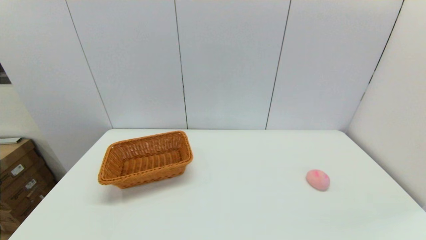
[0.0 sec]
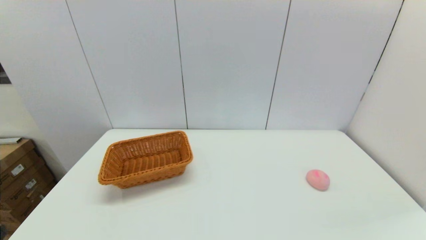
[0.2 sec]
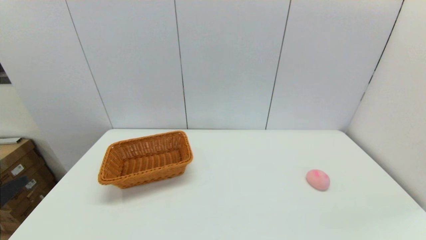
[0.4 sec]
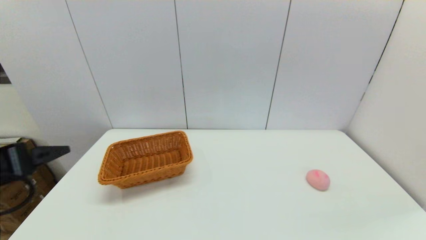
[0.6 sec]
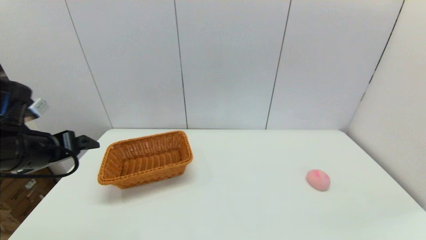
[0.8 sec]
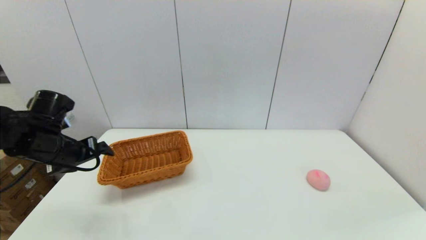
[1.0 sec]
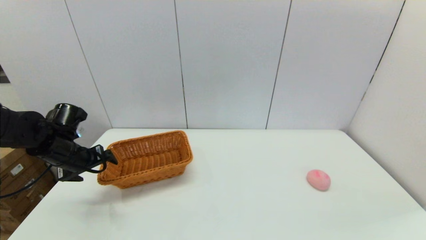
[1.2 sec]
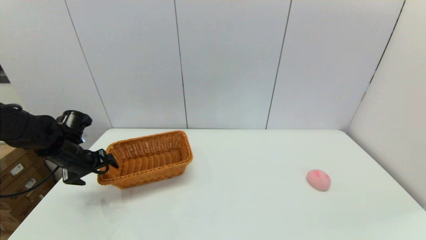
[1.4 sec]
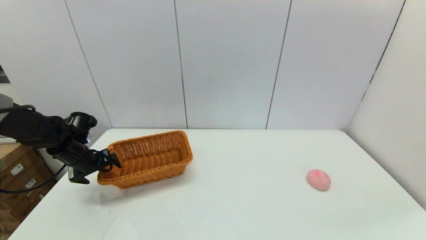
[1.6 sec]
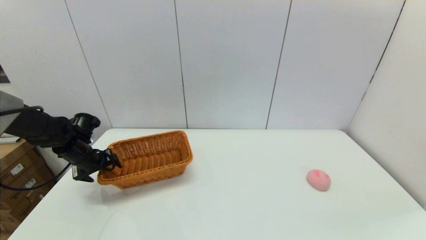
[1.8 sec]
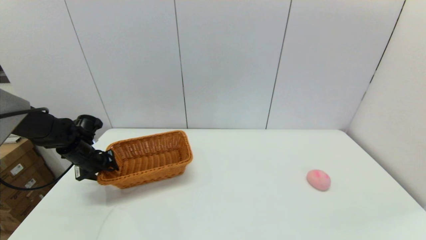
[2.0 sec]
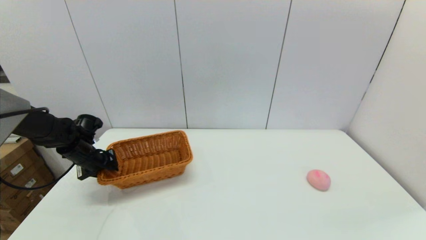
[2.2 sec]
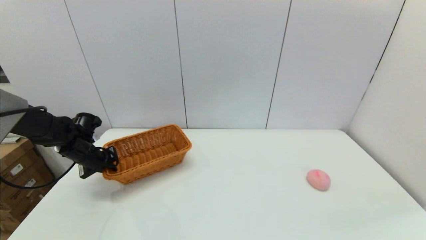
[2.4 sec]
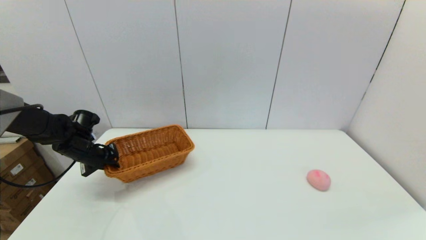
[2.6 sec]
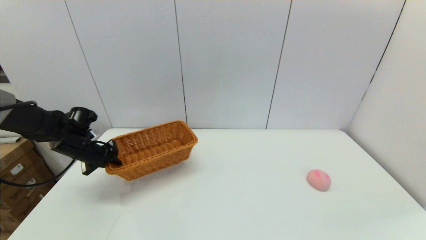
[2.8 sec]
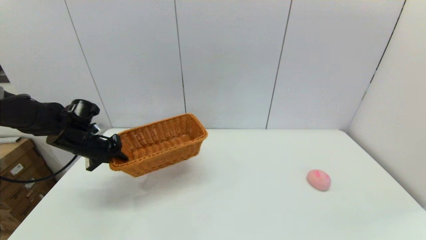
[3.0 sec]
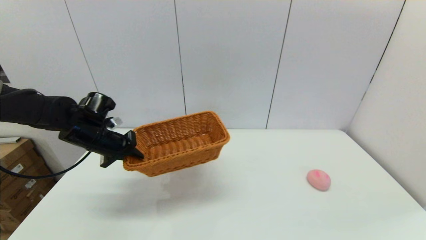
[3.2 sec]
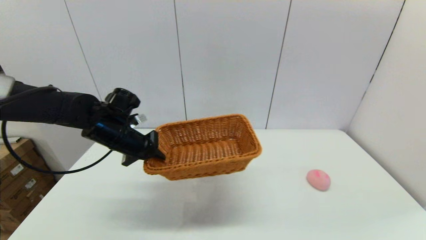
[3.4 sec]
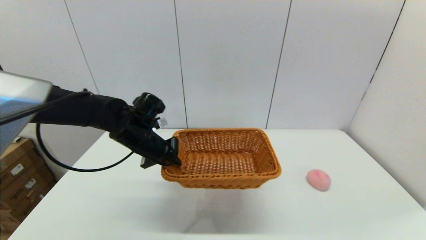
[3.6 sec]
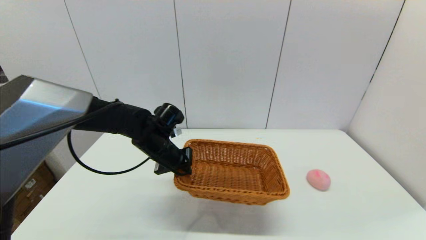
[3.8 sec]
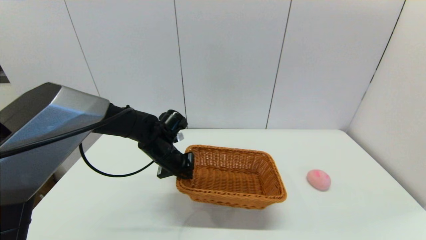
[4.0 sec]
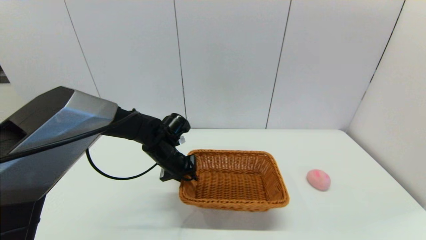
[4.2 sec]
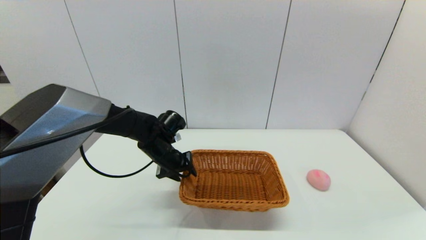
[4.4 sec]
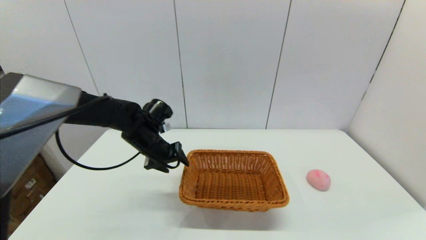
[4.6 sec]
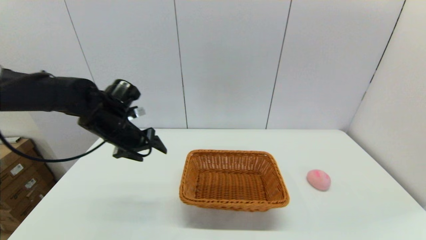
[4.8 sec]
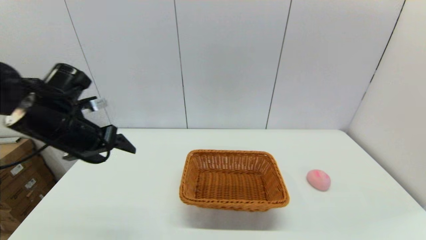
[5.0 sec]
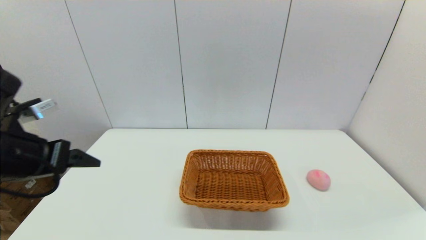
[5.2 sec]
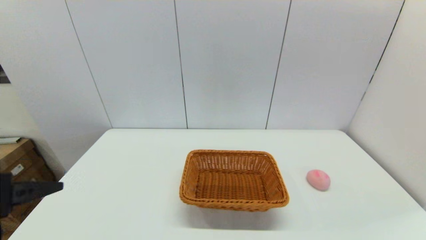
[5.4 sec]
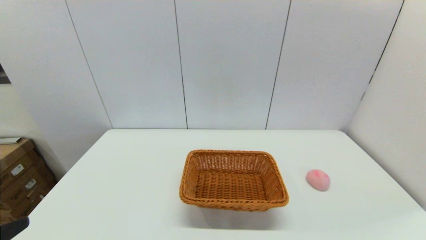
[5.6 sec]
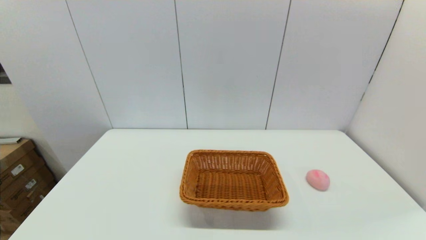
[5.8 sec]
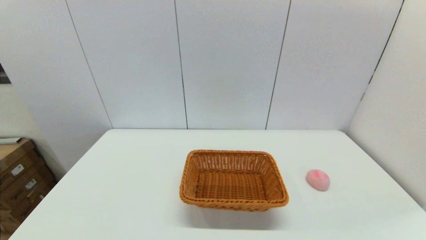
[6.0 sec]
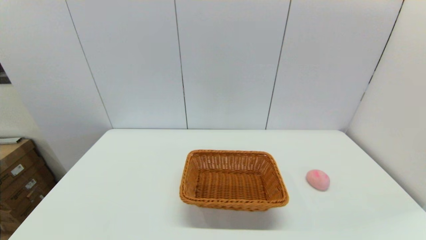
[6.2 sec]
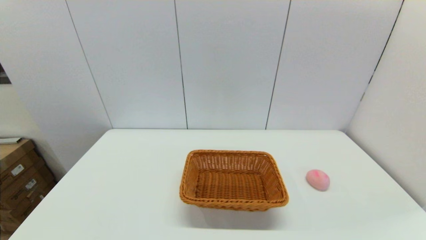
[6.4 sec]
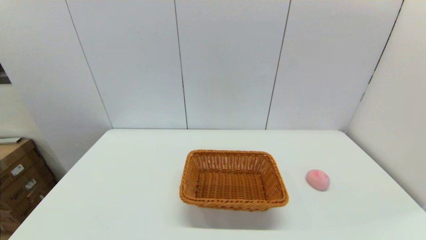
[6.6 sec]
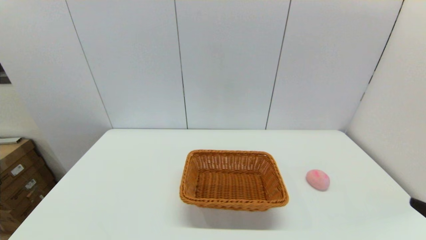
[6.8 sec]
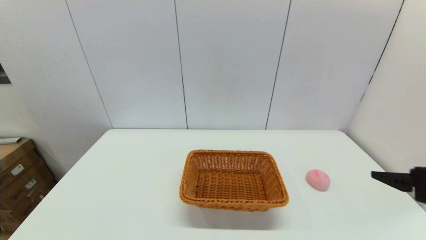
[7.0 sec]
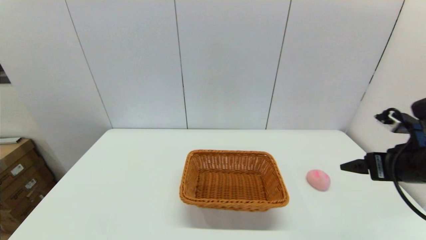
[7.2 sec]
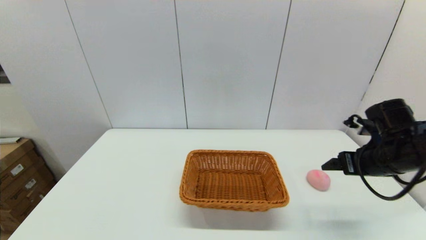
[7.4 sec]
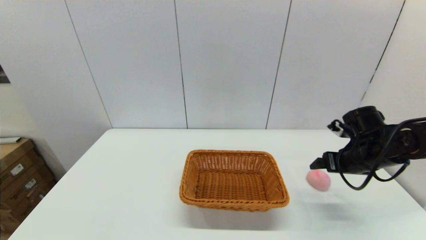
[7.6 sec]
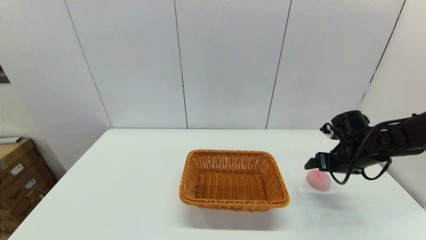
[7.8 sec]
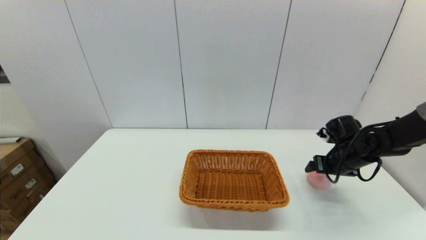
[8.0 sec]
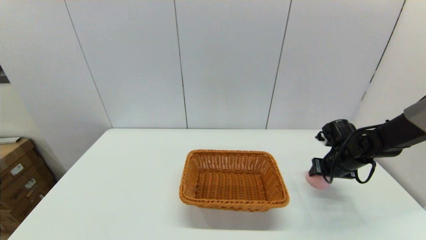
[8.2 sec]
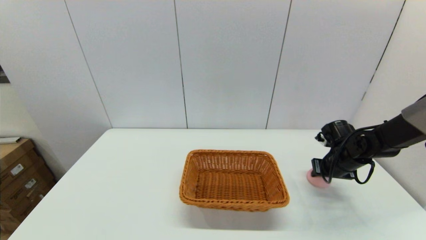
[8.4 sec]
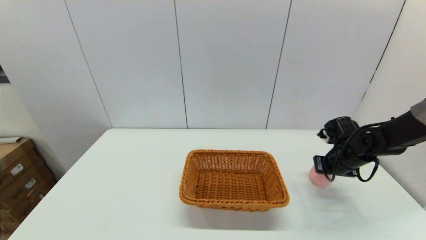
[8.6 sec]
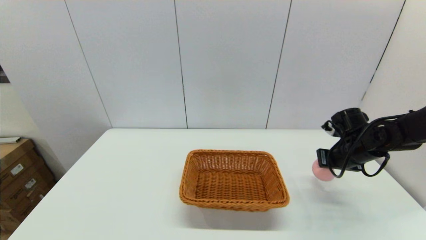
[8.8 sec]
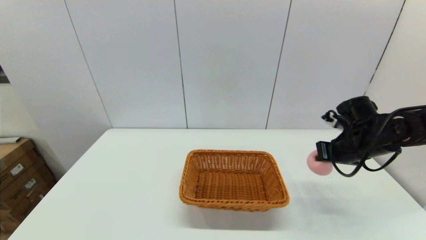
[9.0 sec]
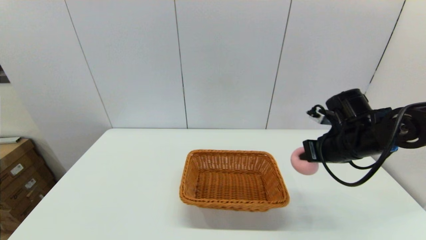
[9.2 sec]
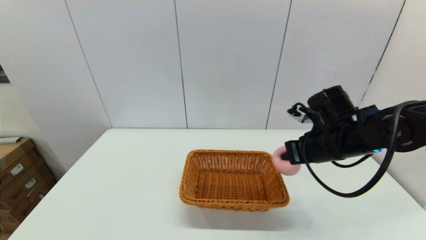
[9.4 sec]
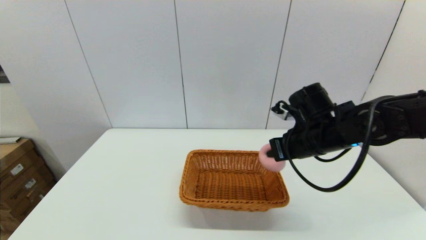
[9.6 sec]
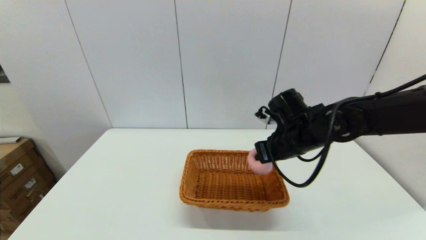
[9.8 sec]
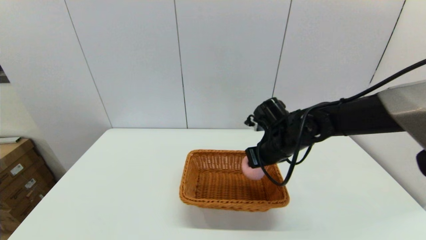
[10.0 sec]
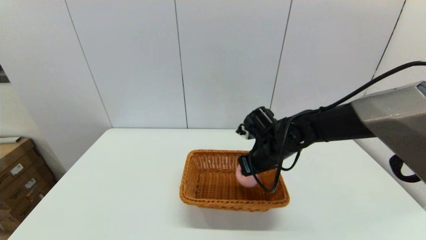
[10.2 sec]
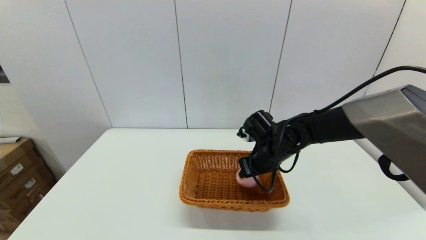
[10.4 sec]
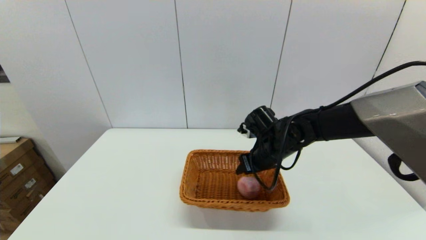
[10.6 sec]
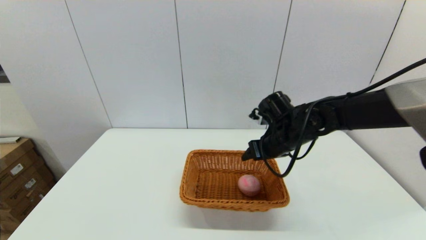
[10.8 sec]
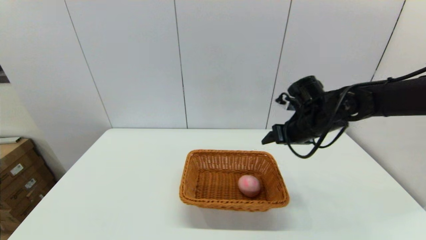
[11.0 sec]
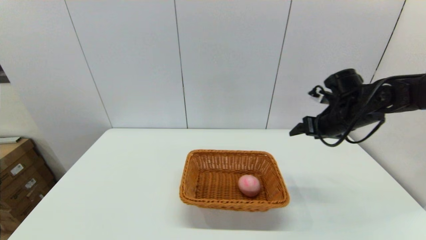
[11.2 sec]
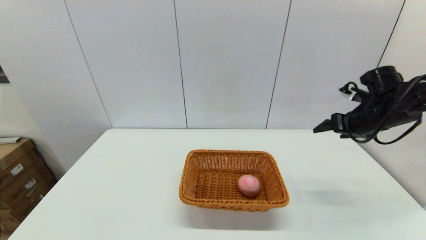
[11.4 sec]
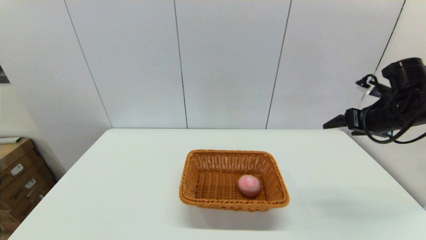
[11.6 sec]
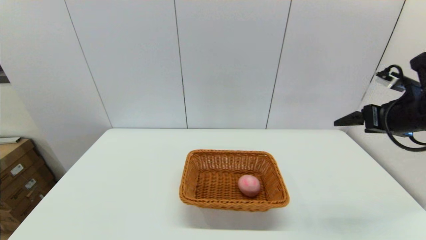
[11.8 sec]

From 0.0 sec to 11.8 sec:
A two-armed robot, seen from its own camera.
Step, from 0.0 sec to 2.4 sec: Grasp the light basket with the left gripper.
Step, from 2.6 sec to 4.4 sec: Place the light basket on the middle of the table with the left gripper.
Step, from 4.6 sec to 8.4 sec: Grasp the peach with the right gripper.
Step, from 8.8 sec to 10.6 sec: Place the peach into the light basket with the right gripper.
From 0.0 sec to 1.4 sec: The left gripper moves forward, some 35 cm.
From 1.4 sec to 3.0 sec: The left gripper closes its fingers.
From 3.0 sec to 4.4 sec: The left gripper goes approximately 20 cm to the right, and opens up.
From 4.4 sec to 6.0 sec: The left gripper heads backward and to the left, covering about 40 cm, and opens up.
From 6.0 sec to 7.4 sec: The right gripper travels forward by some 30 cm.
From 7.4 sec to 8.8 sec: The right gripper shifts approximately 5 cm forward, and closes.
From 8.8 sec to 10.4 sec: The right gripper moves to the left, roughly 20 cm, and opens.
From 10.4 sec to 11.8 sec: The right gripper goes roughly 25 cm to the right and upward, and opens its fingers.

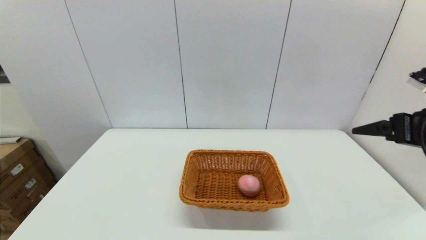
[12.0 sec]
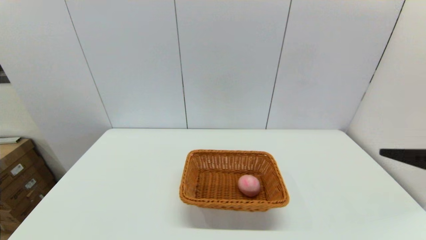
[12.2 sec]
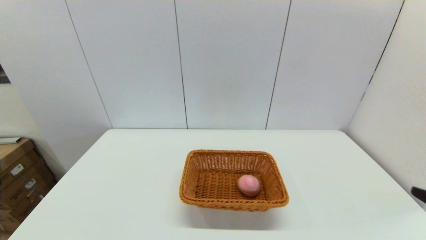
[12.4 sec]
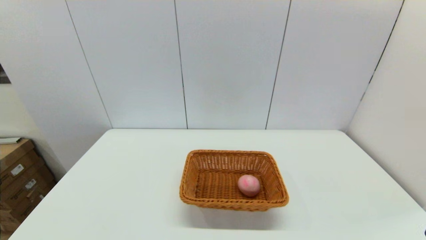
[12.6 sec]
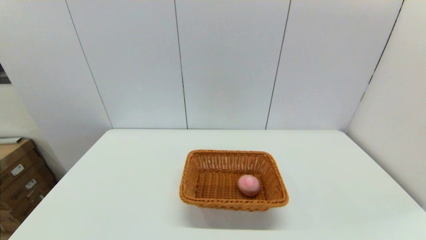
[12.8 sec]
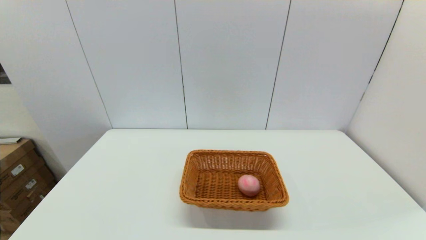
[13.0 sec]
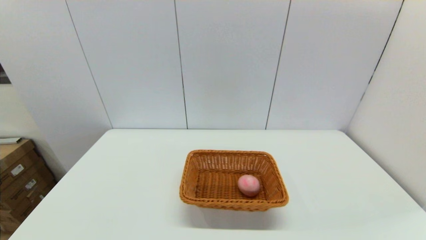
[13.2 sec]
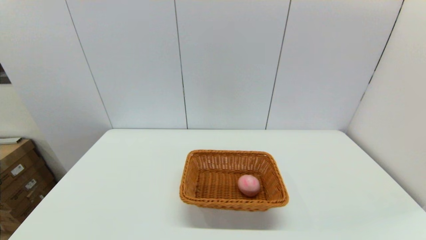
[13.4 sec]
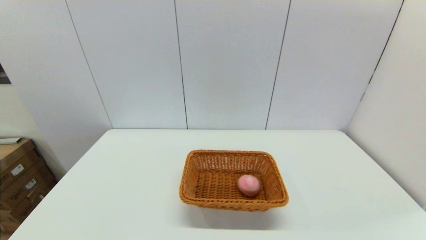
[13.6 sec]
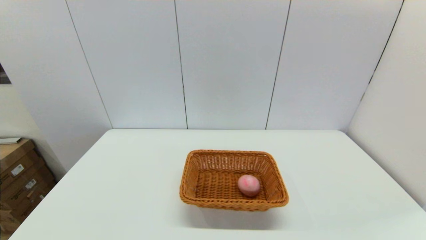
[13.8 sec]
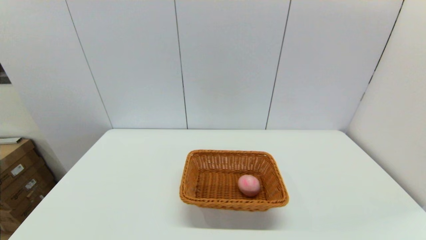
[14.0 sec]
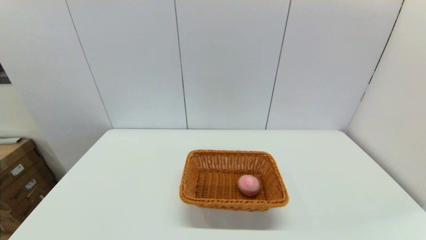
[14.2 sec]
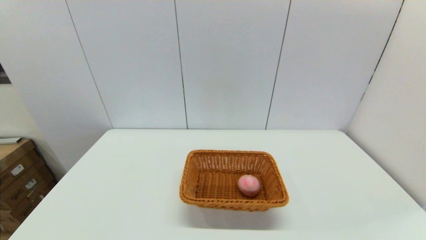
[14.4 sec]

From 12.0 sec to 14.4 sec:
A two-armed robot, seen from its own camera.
From 12.0 sec to 13.2 sec: The right gripper heads backward and downward, covering some 30 cm.

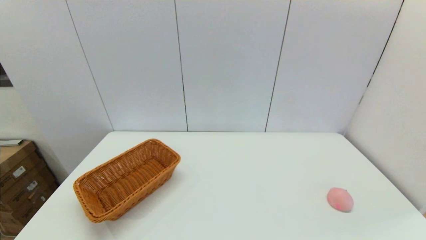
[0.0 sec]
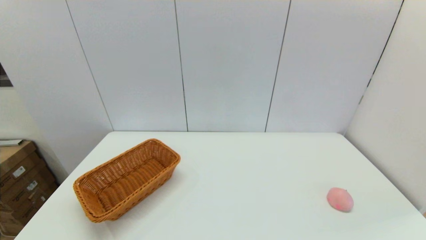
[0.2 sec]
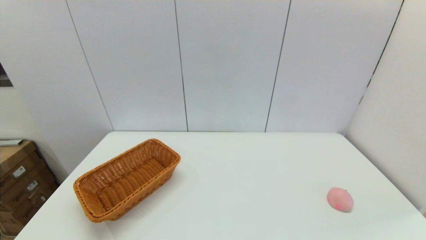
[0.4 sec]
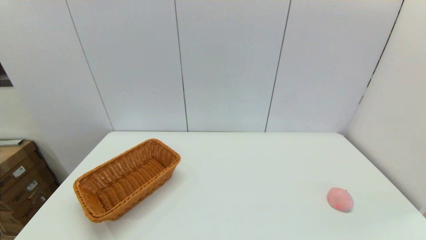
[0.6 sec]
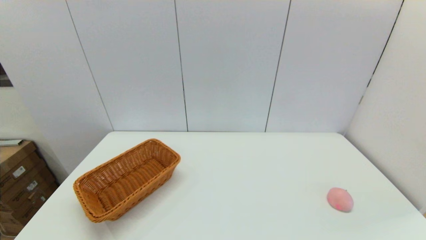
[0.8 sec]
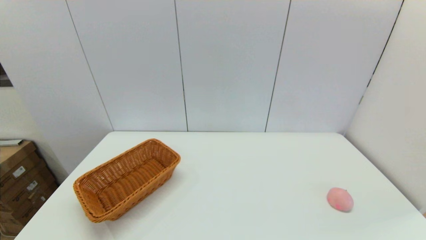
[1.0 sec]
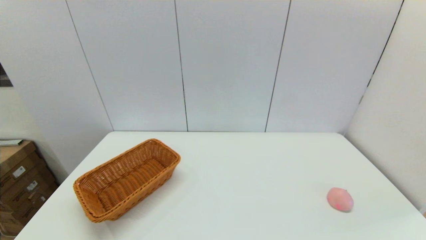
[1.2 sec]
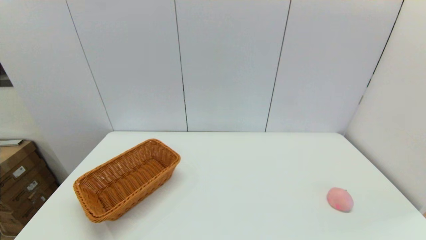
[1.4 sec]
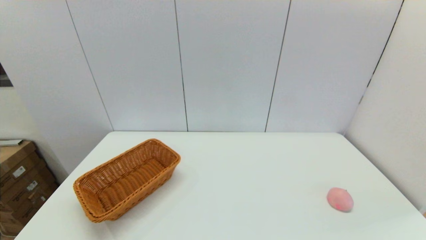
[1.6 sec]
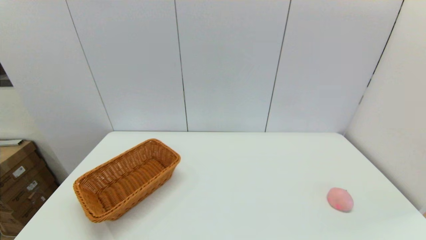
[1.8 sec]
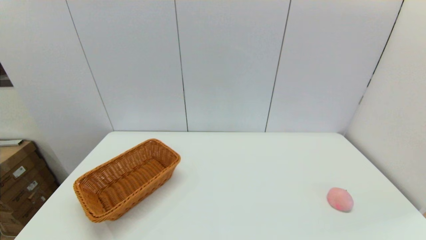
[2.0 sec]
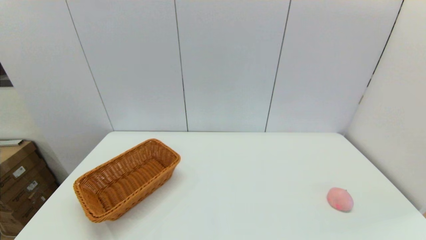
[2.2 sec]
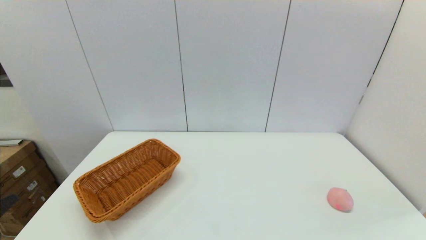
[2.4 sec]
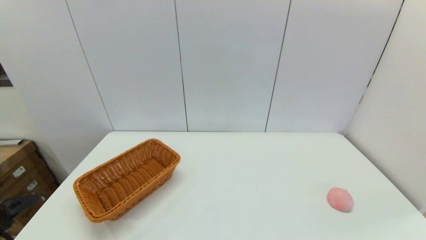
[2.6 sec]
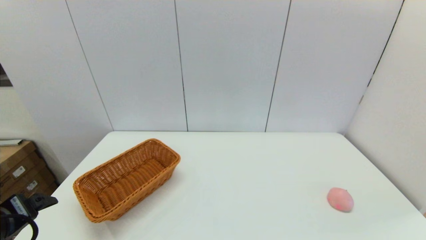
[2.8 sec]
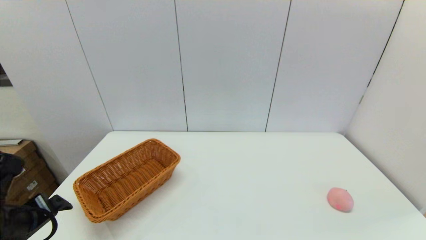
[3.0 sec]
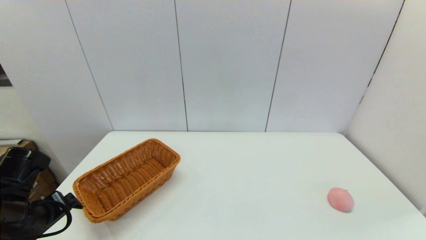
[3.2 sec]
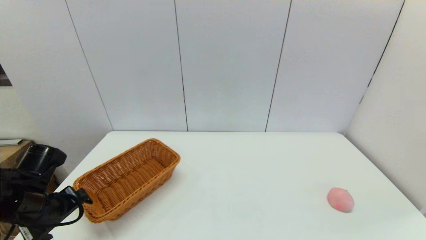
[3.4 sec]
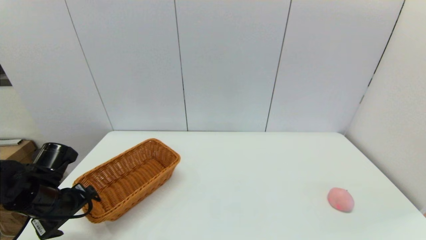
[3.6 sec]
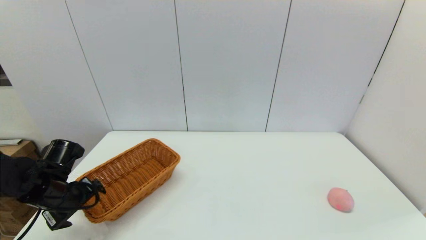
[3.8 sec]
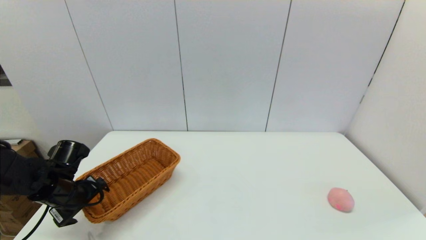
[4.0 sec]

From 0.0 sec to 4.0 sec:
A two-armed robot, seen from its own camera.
From 0.0 sec to 1.4 sec: The two grippers keep their place.
From 2.6 sec to 4.0 sec: The left gripper shifts roughly 20 cm forward and downward.
